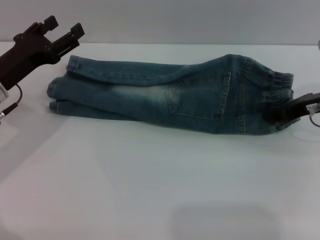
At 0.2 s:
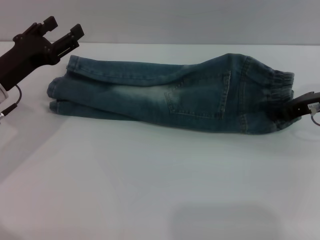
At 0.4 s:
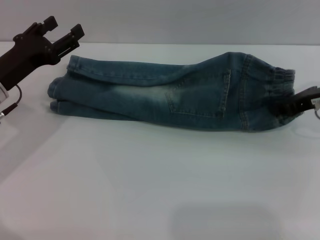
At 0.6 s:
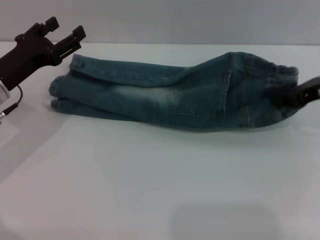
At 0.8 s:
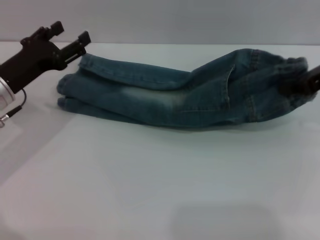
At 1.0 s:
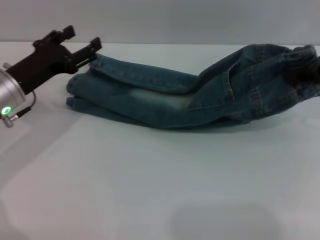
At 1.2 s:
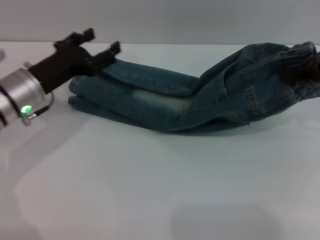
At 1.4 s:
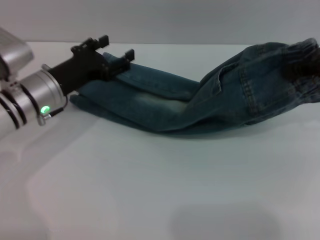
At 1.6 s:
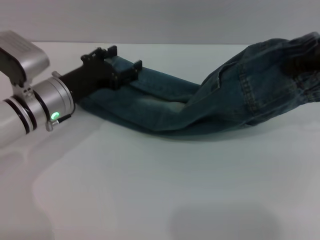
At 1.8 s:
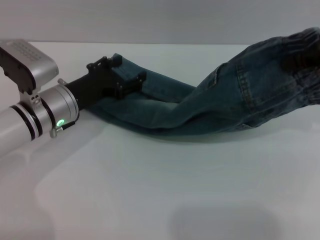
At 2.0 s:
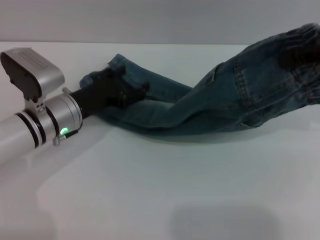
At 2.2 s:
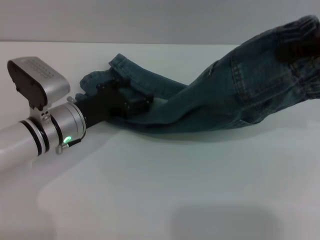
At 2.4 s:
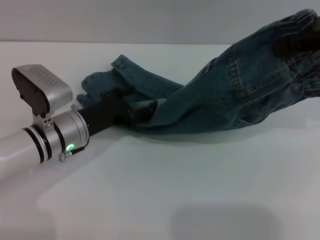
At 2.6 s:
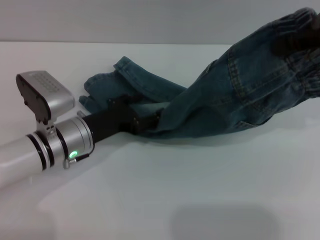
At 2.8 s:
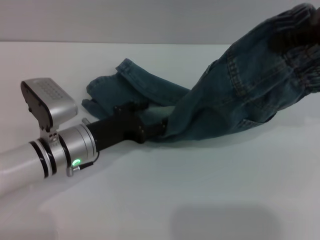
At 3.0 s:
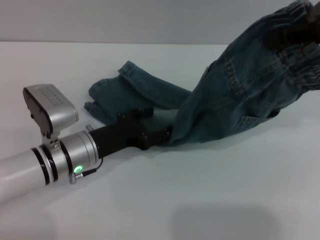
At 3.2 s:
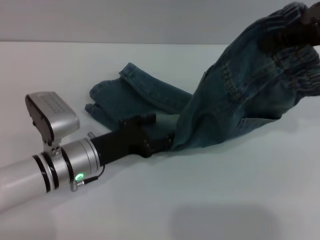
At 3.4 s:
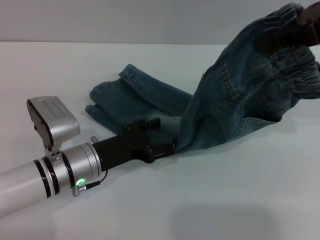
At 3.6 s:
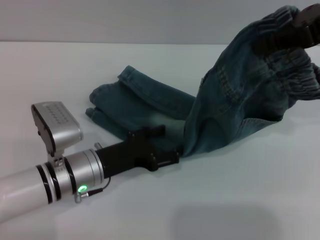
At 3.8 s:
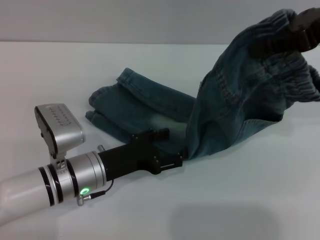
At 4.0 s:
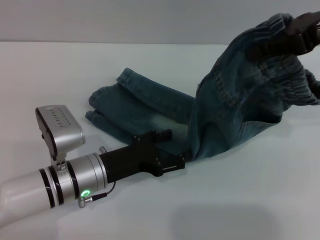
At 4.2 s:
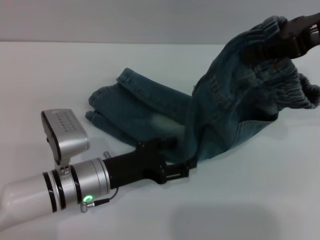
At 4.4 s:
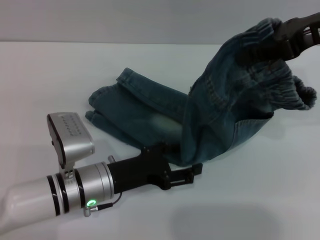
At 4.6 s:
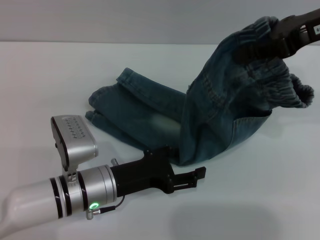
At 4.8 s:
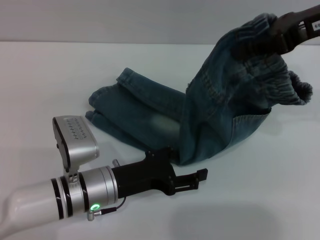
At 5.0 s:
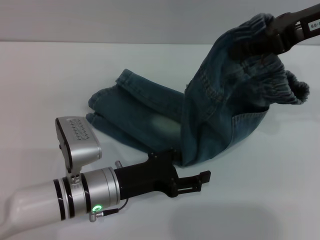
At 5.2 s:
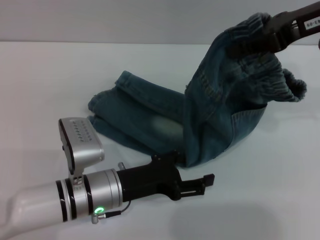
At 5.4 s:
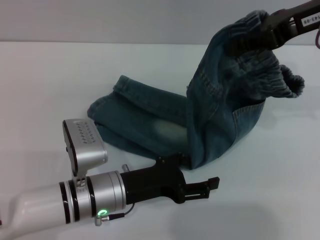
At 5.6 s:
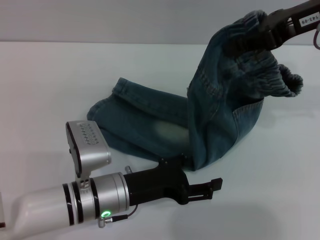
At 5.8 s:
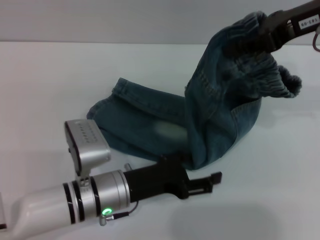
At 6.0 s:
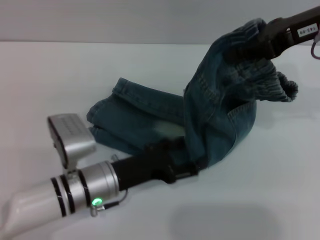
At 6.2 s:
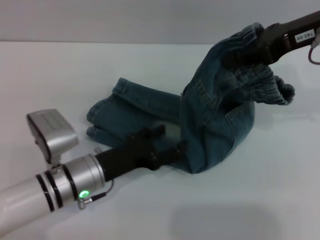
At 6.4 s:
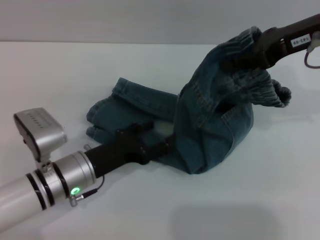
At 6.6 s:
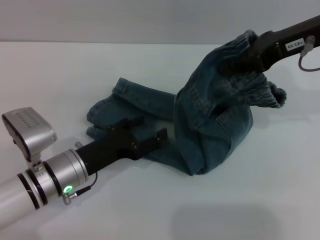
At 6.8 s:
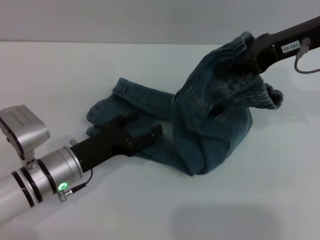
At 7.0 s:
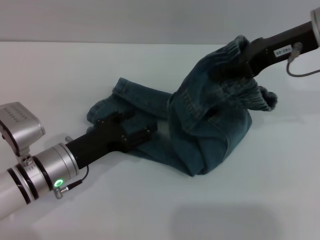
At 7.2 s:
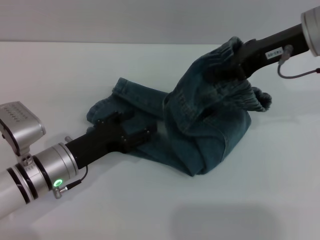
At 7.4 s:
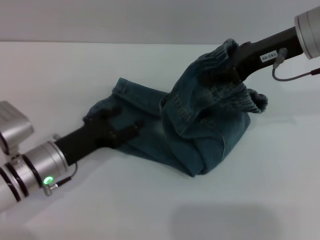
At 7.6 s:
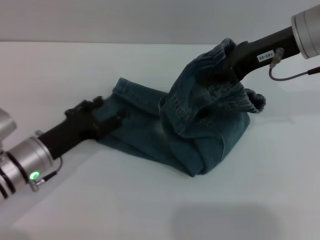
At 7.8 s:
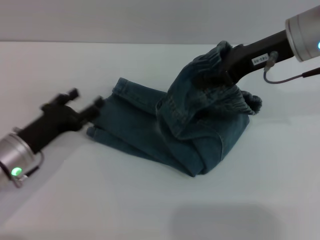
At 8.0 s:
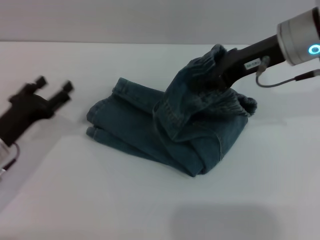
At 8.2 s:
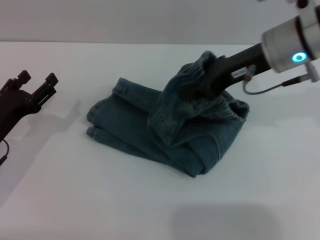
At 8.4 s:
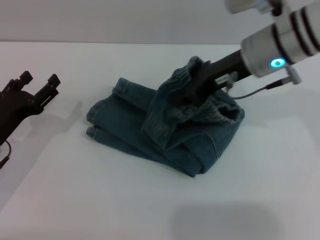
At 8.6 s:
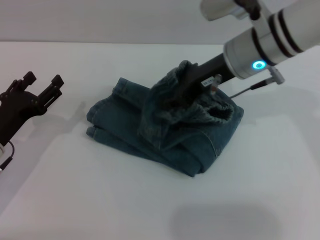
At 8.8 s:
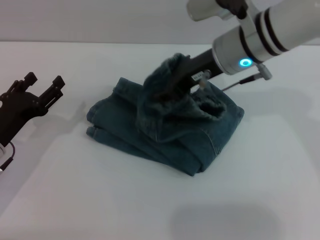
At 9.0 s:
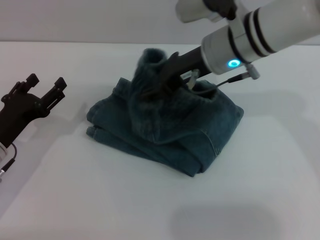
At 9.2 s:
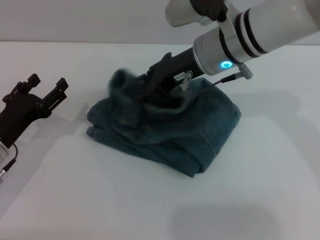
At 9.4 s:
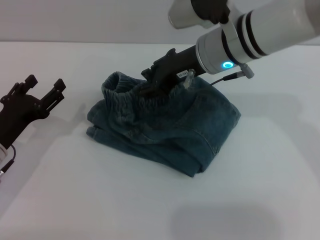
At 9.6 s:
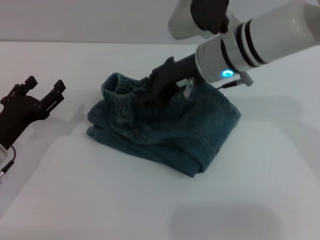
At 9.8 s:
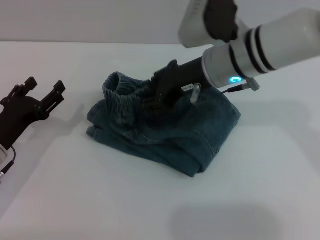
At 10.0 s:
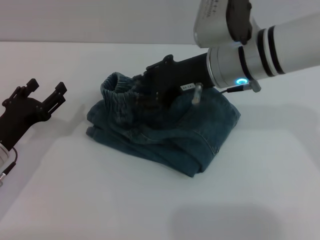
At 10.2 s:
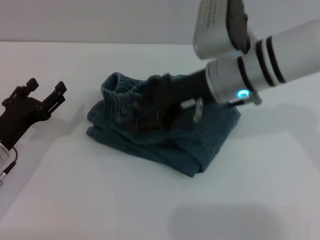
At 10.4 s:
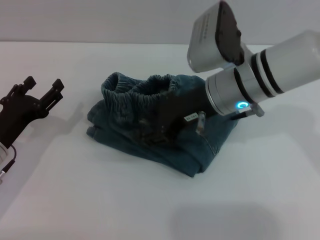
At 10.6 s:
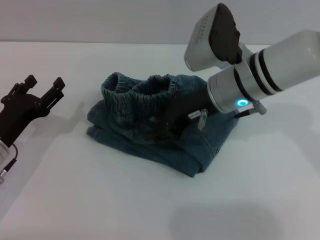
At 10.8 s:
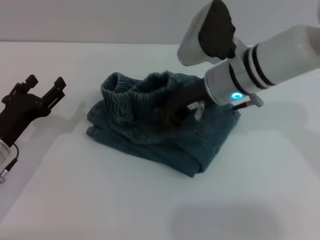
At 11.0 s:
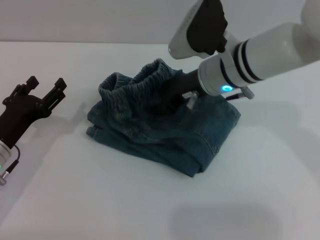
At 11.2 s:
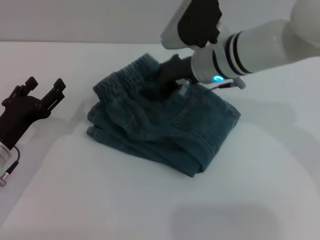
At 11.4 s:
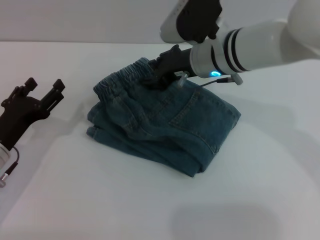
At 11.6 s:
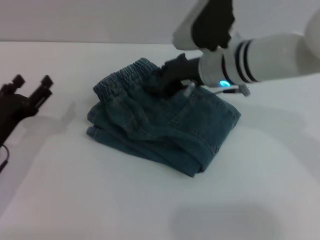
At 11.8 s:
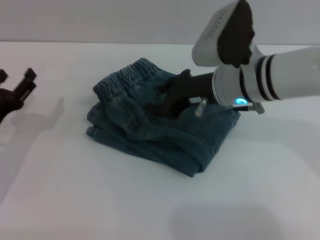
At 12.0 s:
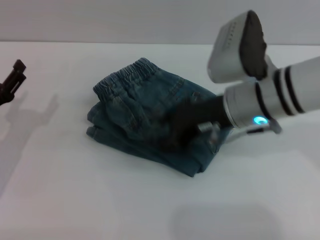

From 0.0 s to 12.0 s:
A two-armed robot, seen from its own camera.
Step, from 0.0 s to 11.8 s: Fold the pants from right to left with the right gripper.
From 0.0 s to 1.6 s: The left gripper heads to the right, covering some 5 cm; the right gripper shifts about 15 cm upward, and closes.
From 1.6 s to 3.0 s: The left gripper moves backward, approximately 5 cm.
From 4.4 s to 6.0 s: The grippers move only a little.
From 6.0 s to 7.6 s: The left gripper travels to the left by roughly 10 cm. The right gripper changes place by about 5 cm.
From 7.6 s to 9.0 s: The right gripper goes roughly 10 cm to the left, while the left gripper is displaced to the left by approximately 5 cm.
From 9.0 s to 10.4 s: The right gripper changes place by roughly 5 cm.
From 10.4 s to 12.0 s: The right gripper goes forward and returns, roughly 5 cm each way.

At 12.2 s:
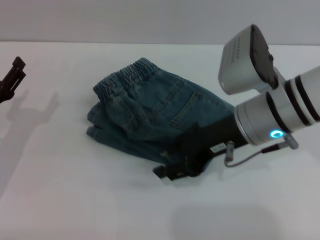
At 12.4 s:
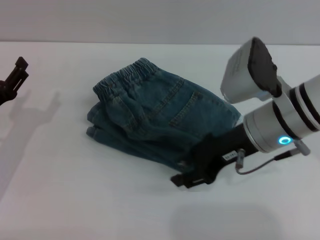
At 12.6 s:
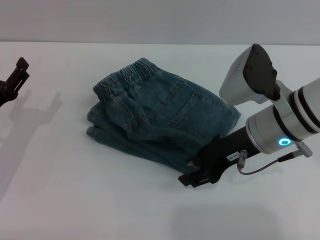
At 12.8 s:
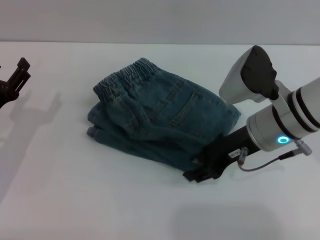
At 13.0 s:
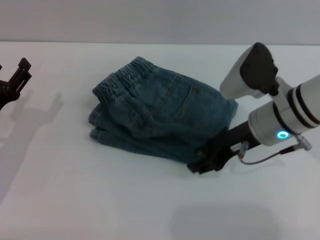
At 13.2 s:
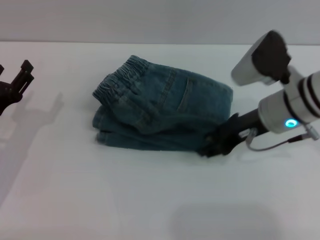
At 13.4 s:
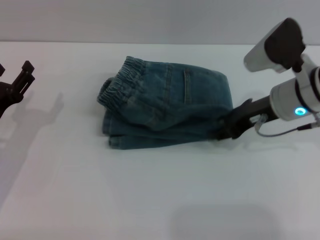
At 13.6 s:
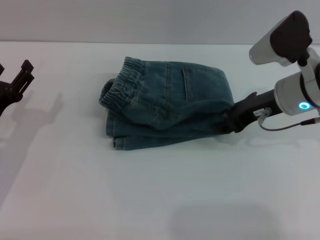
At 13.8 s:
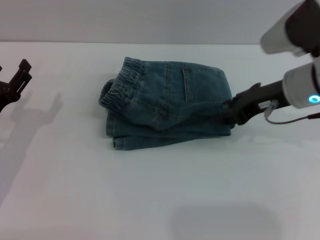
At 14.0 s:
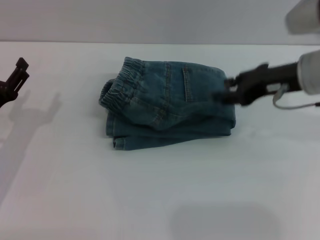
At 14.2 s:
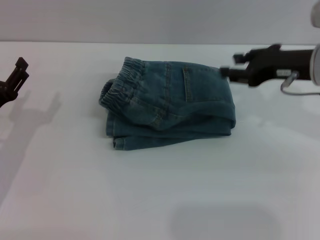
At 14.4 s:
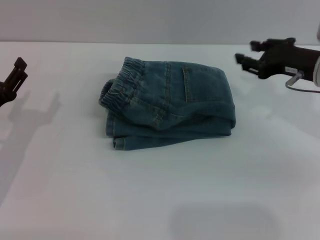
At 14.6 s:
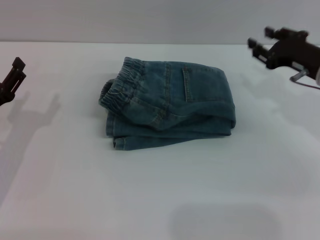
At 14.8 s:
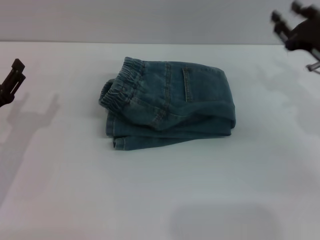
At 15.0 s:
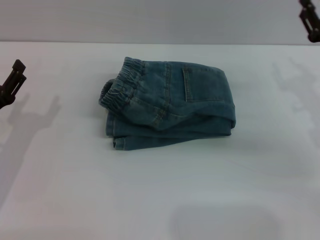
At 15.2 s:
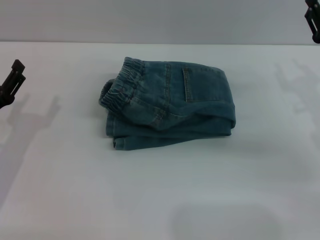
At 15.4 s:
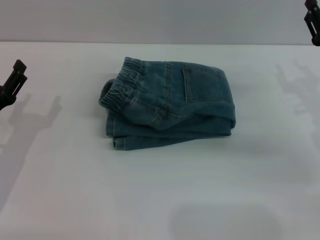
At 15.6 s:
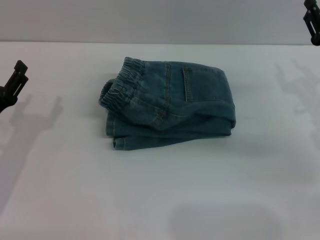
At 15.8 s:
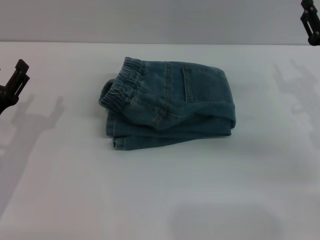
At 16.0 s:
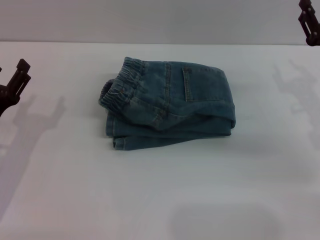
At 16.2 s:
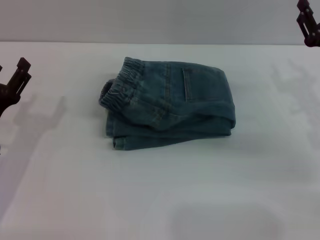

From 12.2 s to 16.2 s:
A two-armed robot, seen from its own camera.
Step, from 12.2 s to 13.6 s: Place the folded trousers onto the center area with the right grippers.
From 12.2 s to 13.6 s: The right gripper is displaced to the right and forward by some 10 cm.
From 13.6 s to 14.8 s: The right gripper heads to the right, covering approximately 10 cm.
From 14.8 s to 16.2 s: The grippers move only a little.
